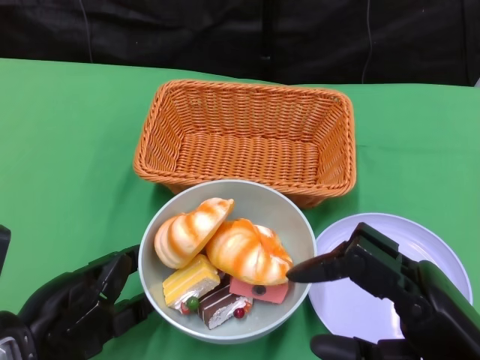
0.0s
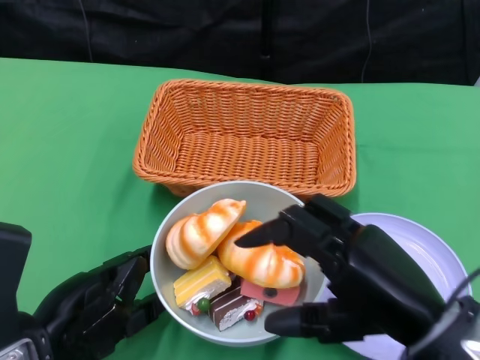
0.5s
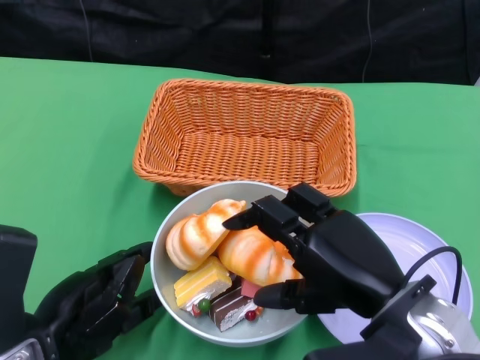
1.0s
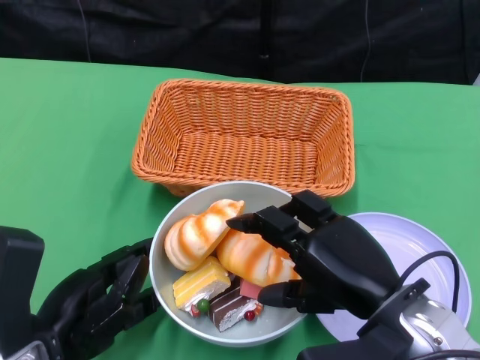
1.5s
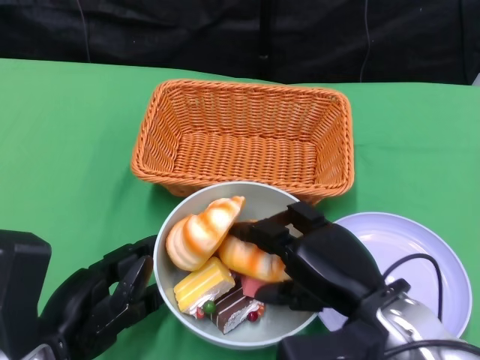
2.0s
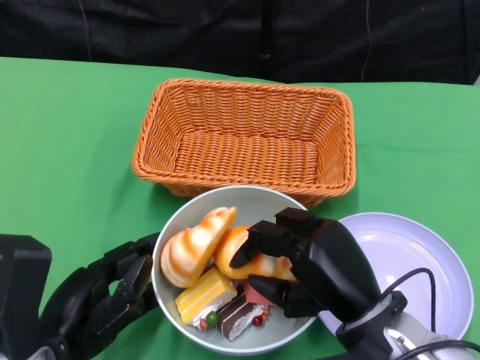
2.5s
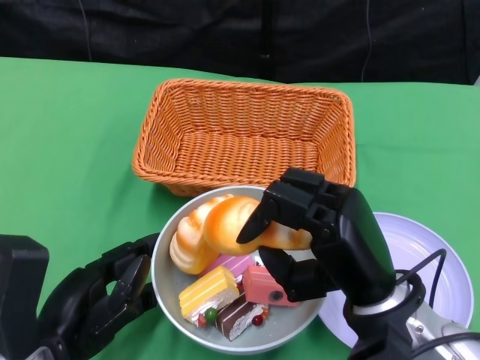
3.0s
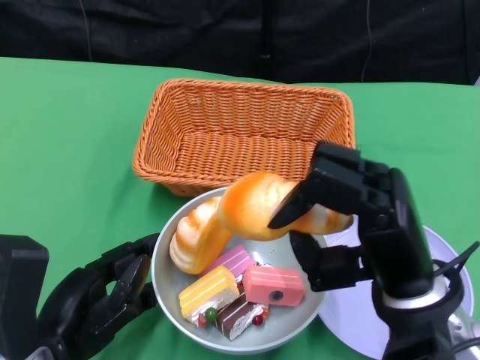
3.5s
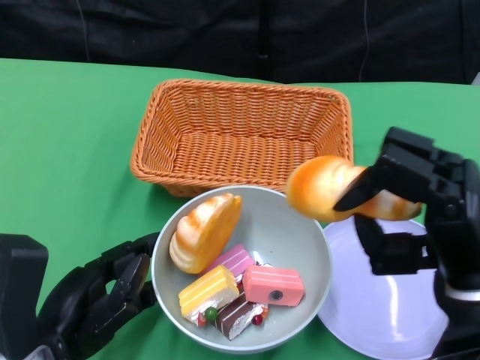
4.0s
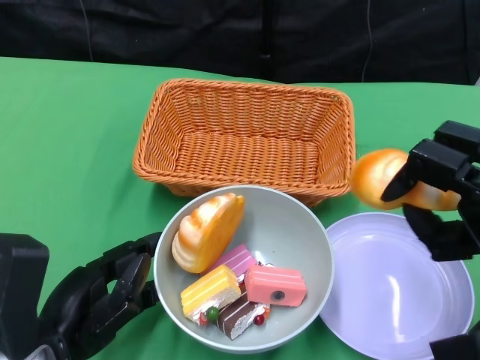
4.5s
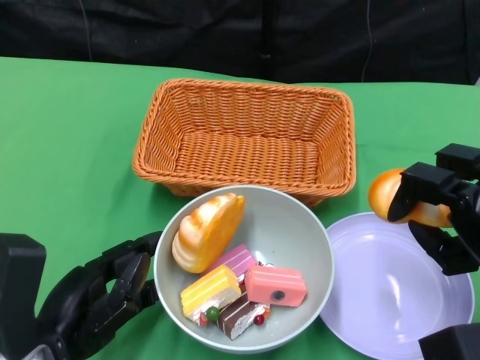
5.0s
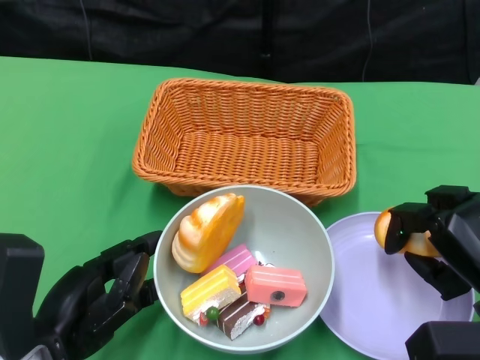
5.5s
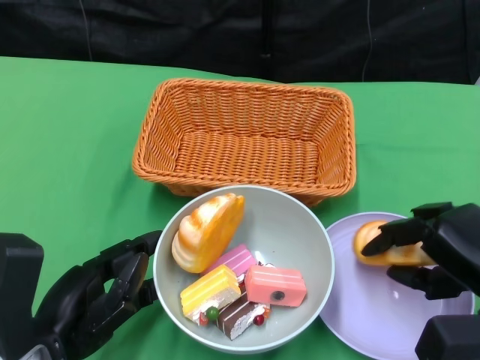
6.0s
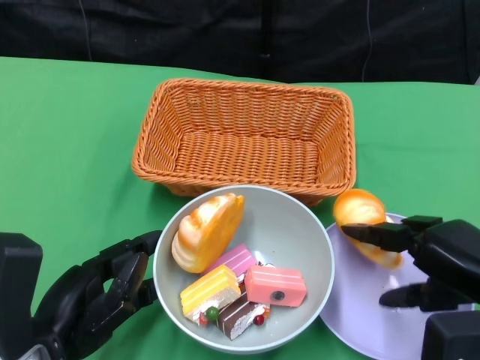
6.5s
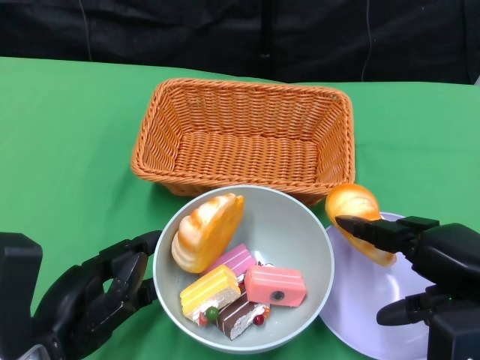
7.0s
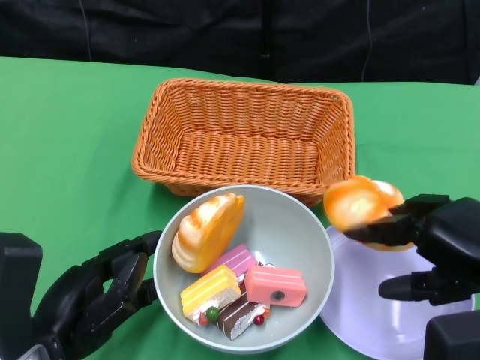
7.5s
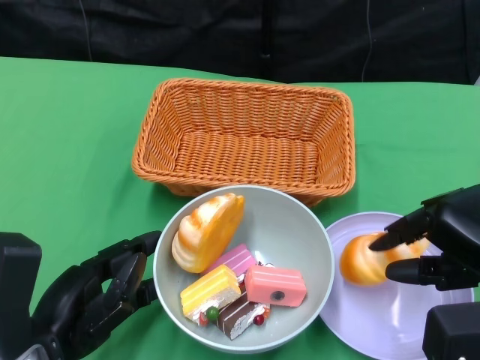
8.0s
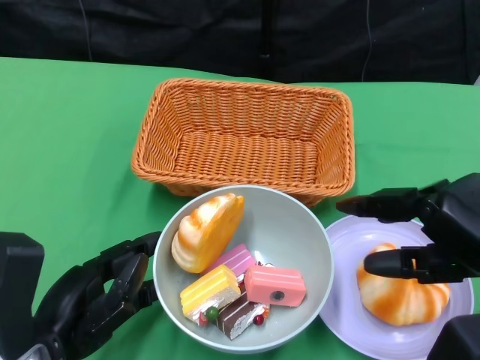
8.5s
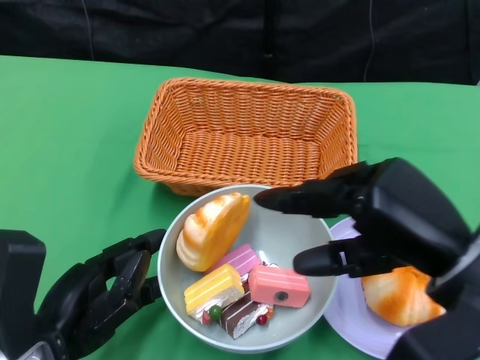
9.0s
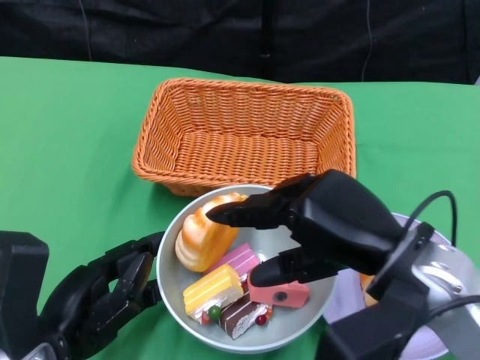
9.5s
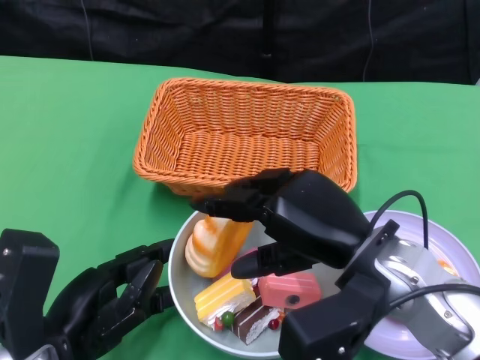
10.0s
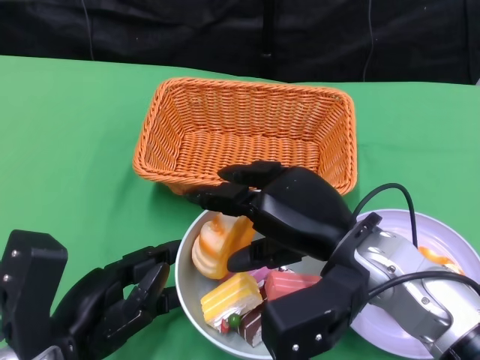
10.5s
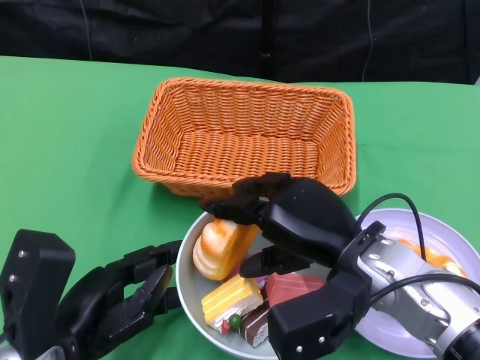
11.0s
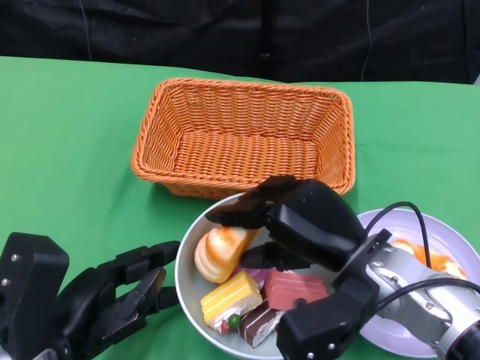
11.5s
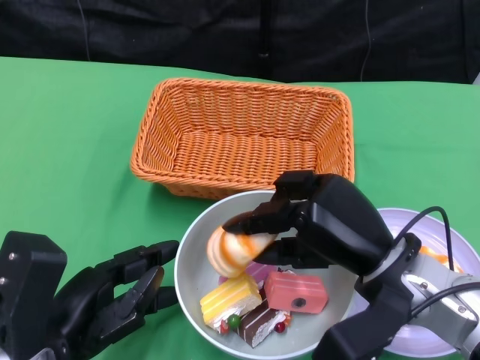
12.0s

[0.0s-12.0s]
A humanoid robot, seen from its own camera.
0.0s to 2.0s: The right hand heads forward and to the left, covering roughly 10 cm.
2.0s to 4.0s: The right hand shifts some 5 cm to the right.
4.0s to 6.0s: The right hand is displaced to the right and downward by some 10 cm.
6.0s to 8.0s: The right hand travels upward by approximately 5 cm.
8.0s to 10.0s: The right hand travels to the left by some 15 cm.

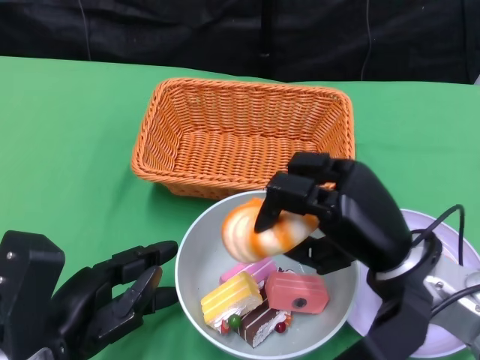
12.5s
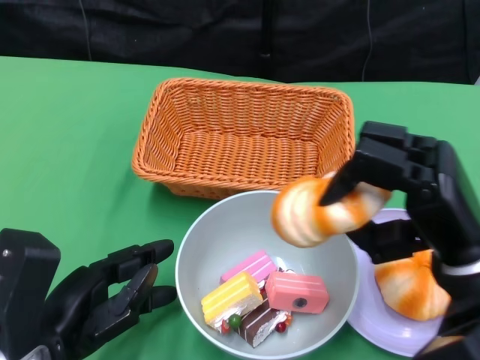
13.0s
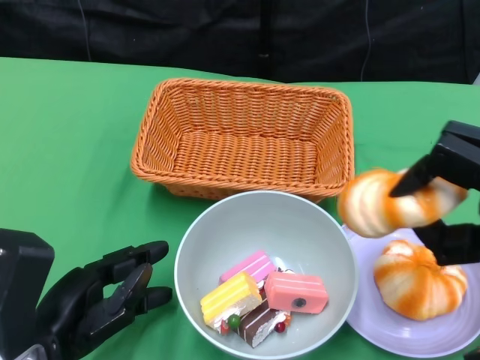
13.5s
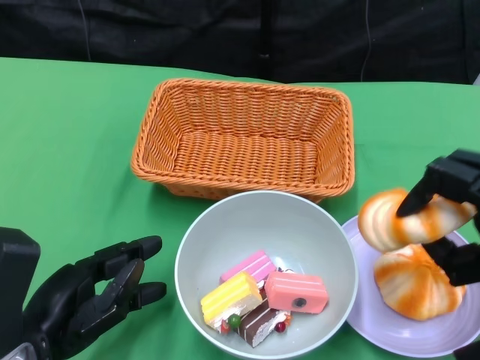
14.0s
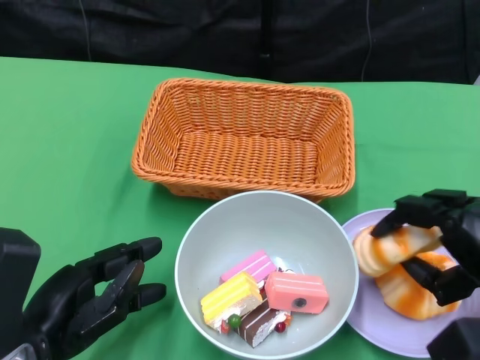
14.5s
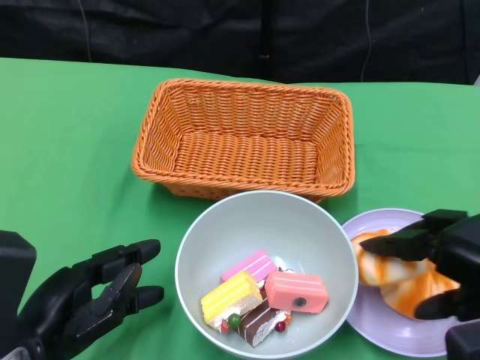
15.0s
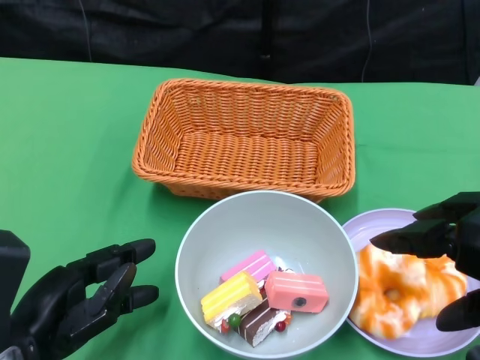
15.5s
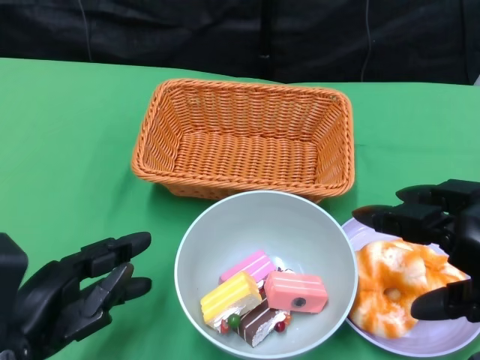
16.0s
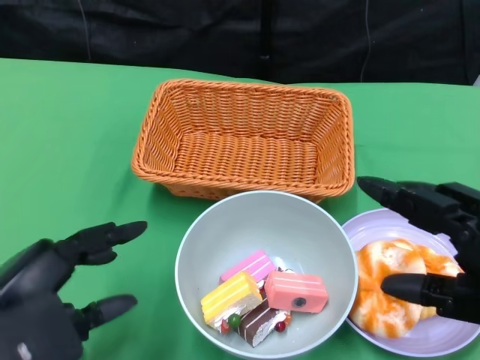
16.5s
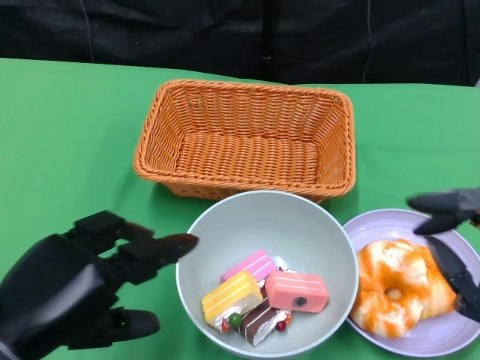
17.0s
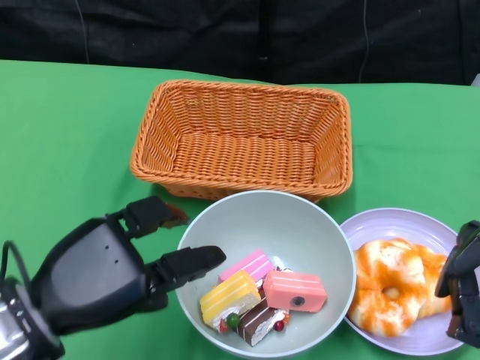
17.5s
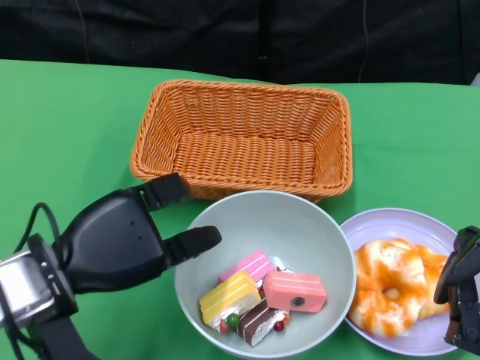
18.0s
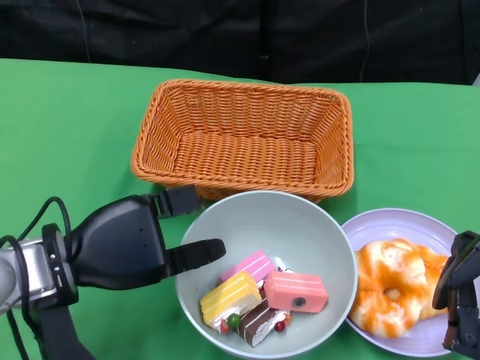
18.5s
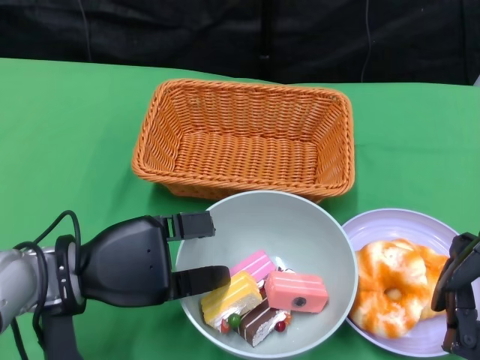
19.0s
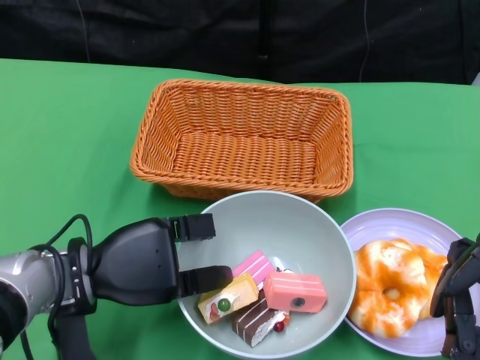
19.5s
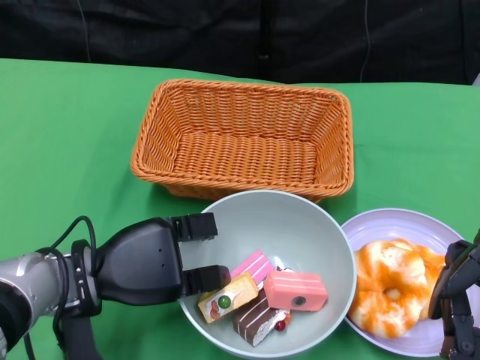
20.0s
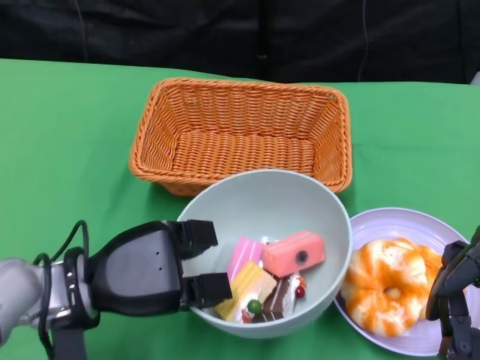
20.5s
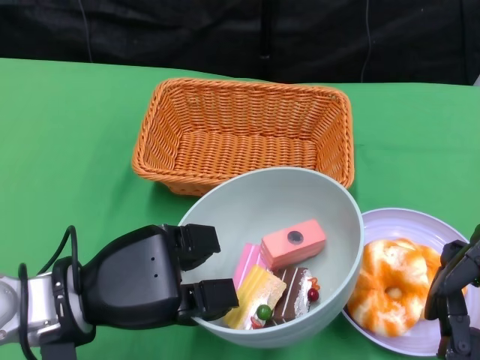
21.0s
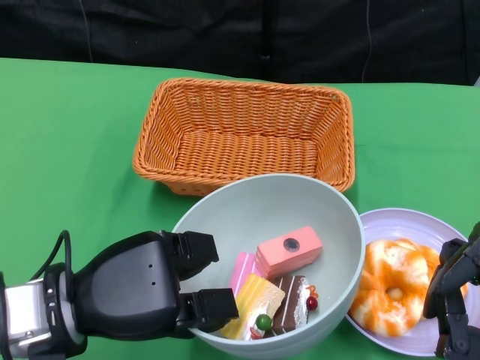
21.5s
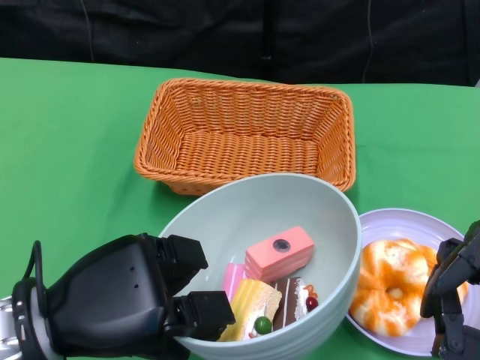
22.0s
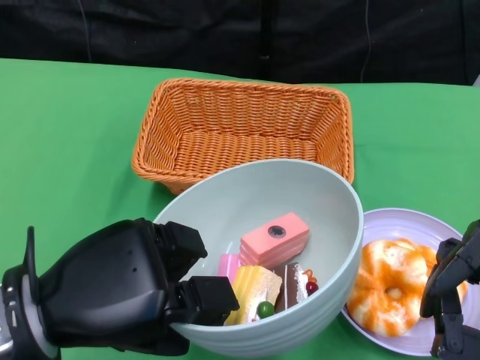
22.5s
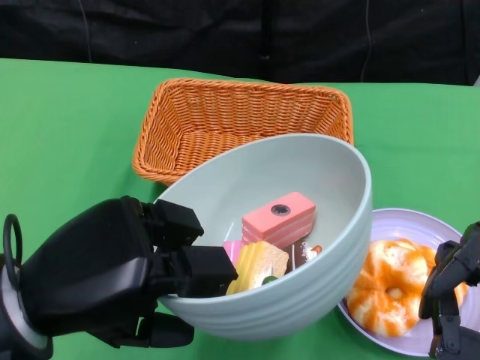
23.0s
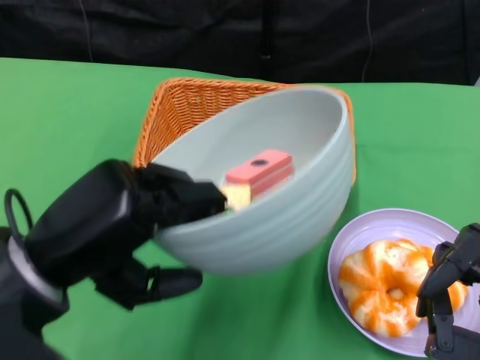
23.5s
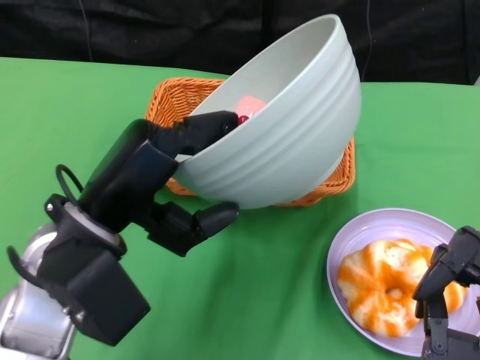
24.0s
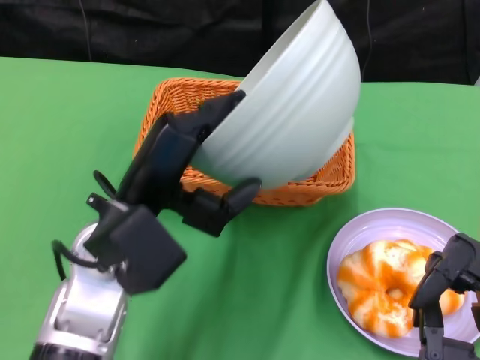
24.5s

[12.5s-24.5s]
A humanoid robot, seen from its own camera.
Step, 12.5s to 15.5s: Pick up the bread with the right gripper and place it on the plate.
Step, 16.0s to 20.0s: Grasp the bowl with the left gripper.
12.5s to 14.5s: The right hand shifts about 10 cm to the right.
14.5s to 16.5s: The left hand travels upward by about 5 cm; the right hand is displaced upward and backward by some 15 cm.
16.5s to 18.5s: The right hand is displaced downward by about 5 cm. Meanwhile the left hand shifts approximately 10 cm forward.
20.5s to 22.5s: The left hand travels upward and backward by roughly 10 cm.
22.5s to 24.5s: The left hand travels forward and to the right by approximately 10 cm.

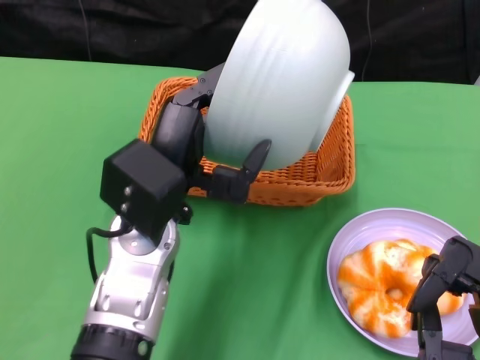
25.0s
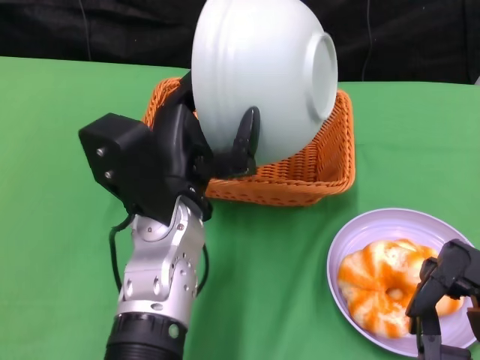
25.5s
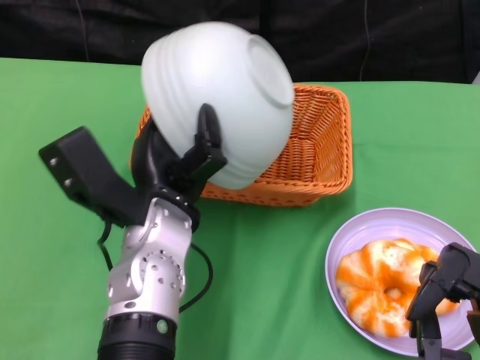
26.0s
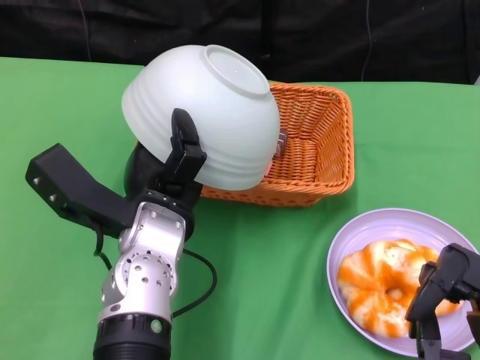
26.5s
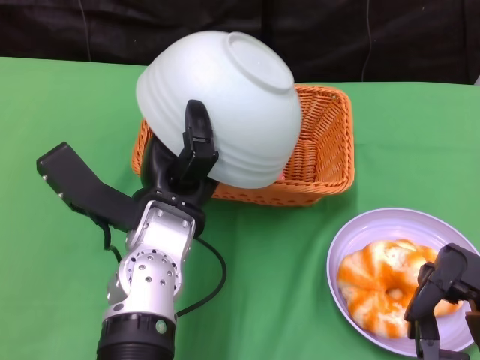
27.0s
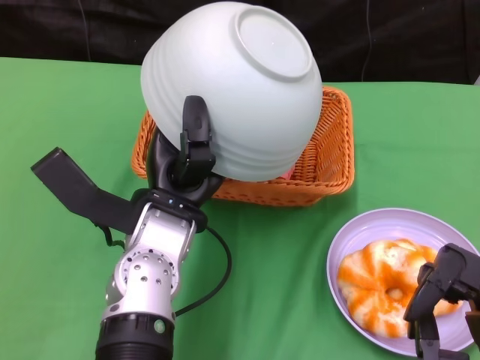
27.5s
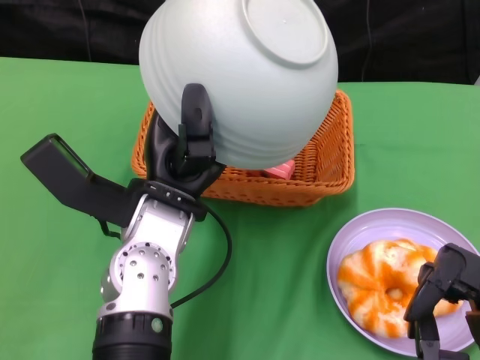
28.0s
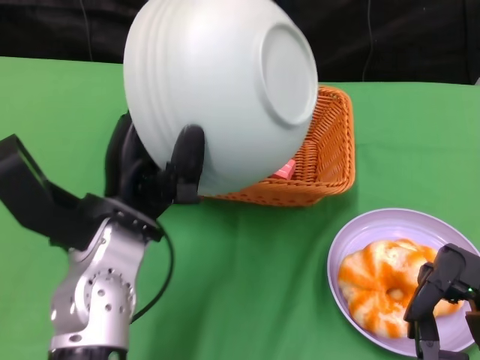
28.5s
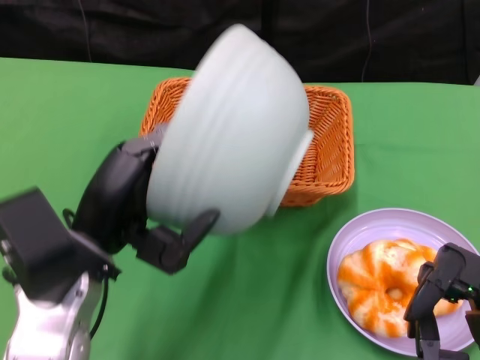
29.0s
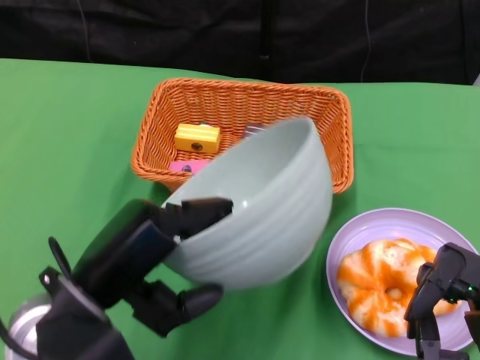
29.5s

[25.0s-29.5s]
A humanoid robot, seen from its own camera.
Step, 25.0s to 27.5s: Pour the cake into the basket with the left gripper.
27.0s to 29.5s: The left hand is displaced to the left and backward by some 10 cm.
